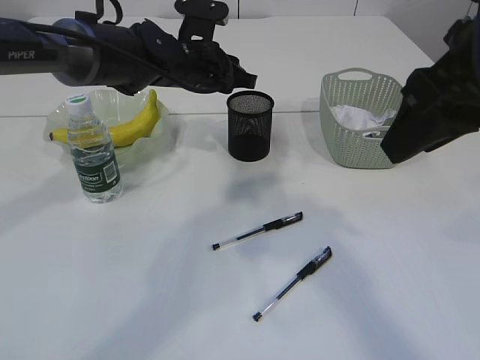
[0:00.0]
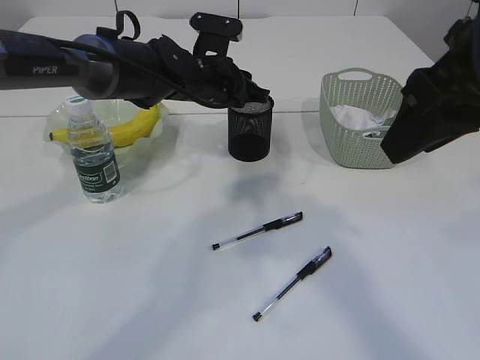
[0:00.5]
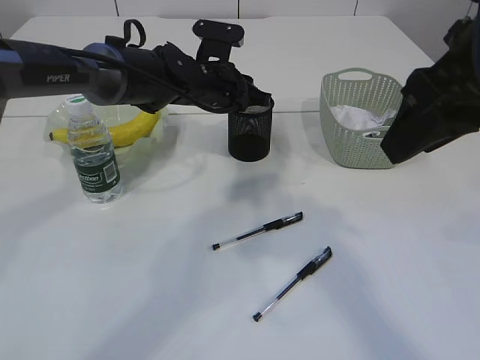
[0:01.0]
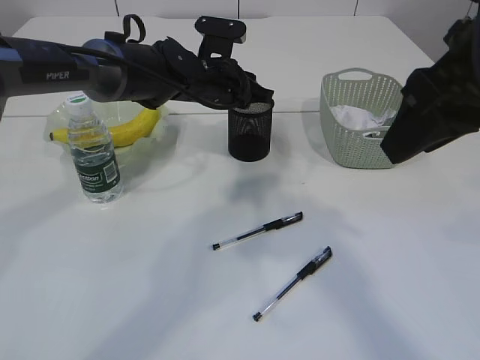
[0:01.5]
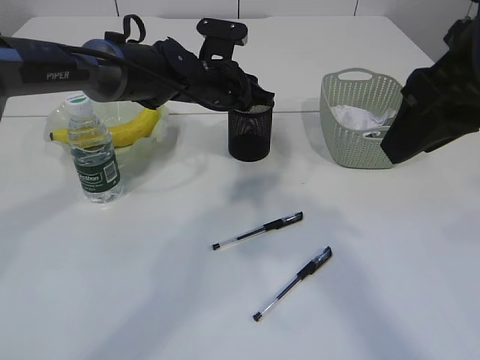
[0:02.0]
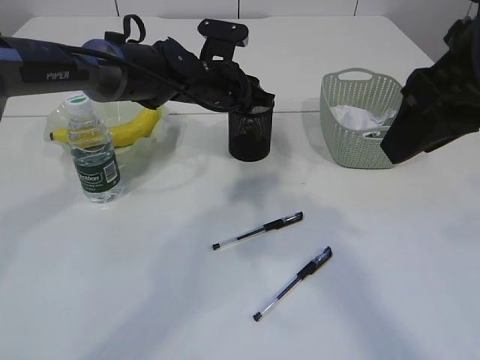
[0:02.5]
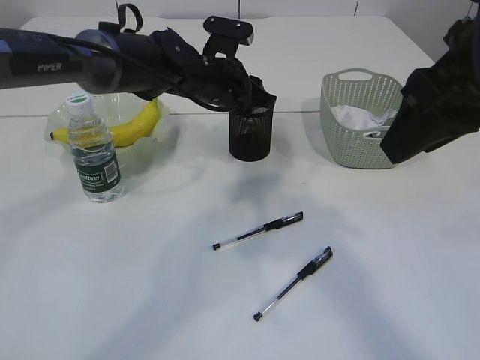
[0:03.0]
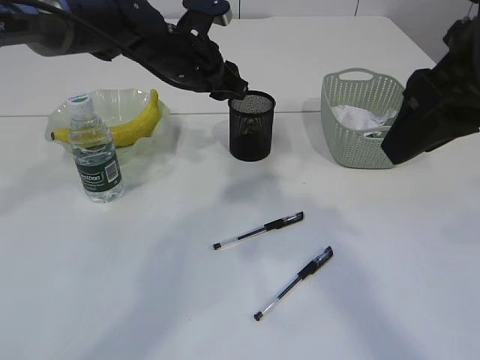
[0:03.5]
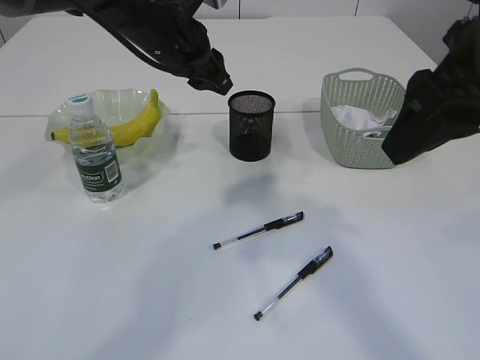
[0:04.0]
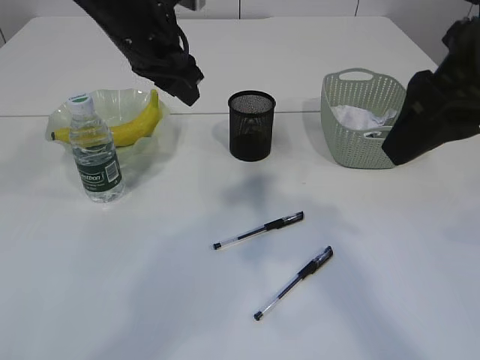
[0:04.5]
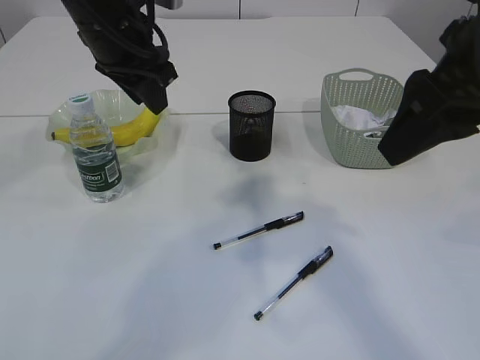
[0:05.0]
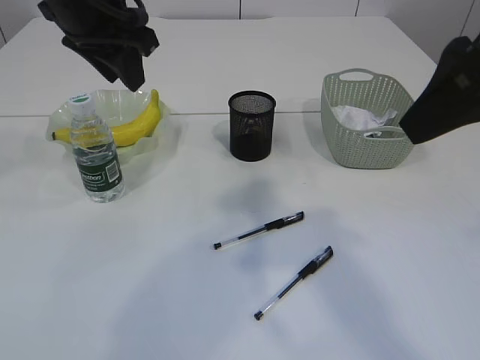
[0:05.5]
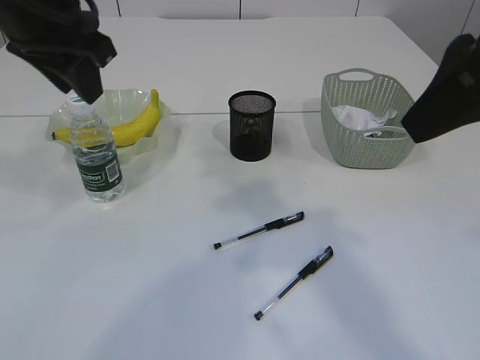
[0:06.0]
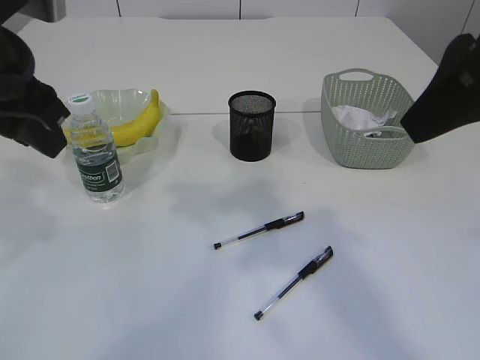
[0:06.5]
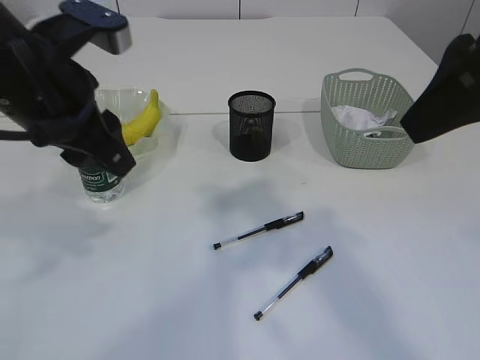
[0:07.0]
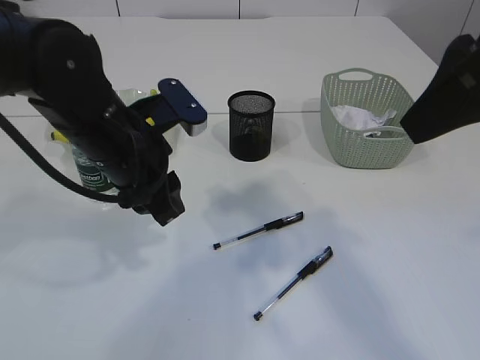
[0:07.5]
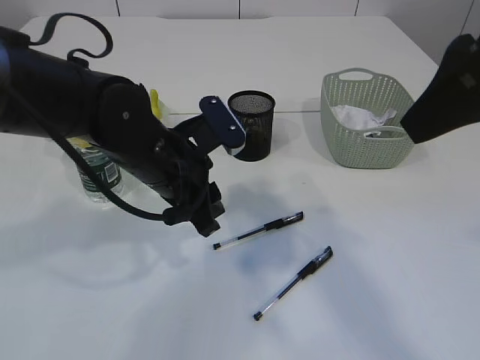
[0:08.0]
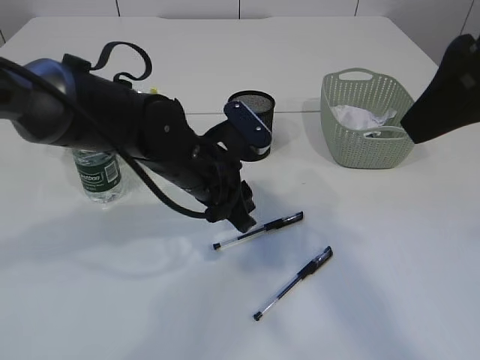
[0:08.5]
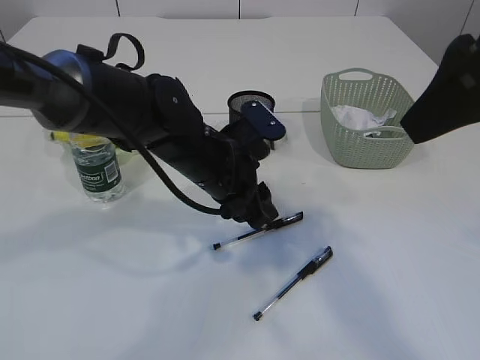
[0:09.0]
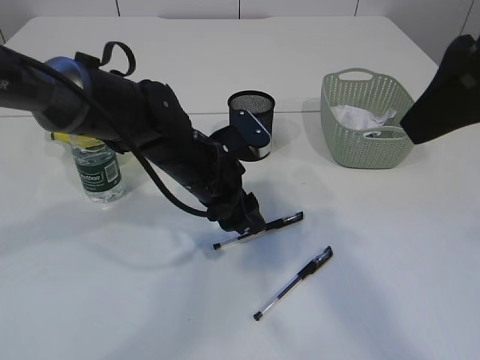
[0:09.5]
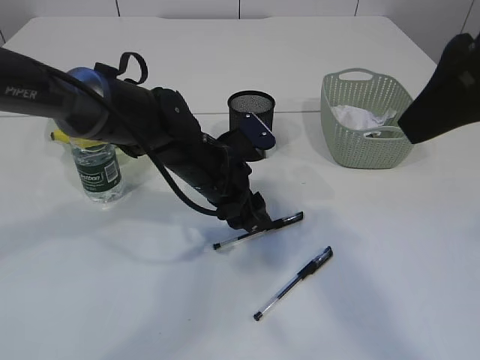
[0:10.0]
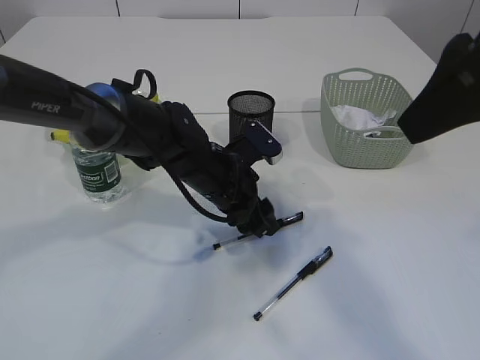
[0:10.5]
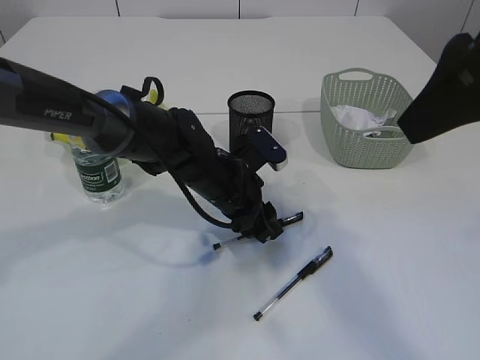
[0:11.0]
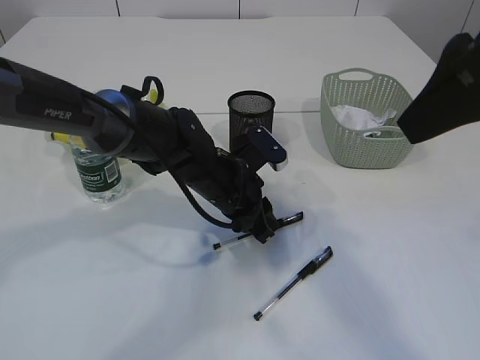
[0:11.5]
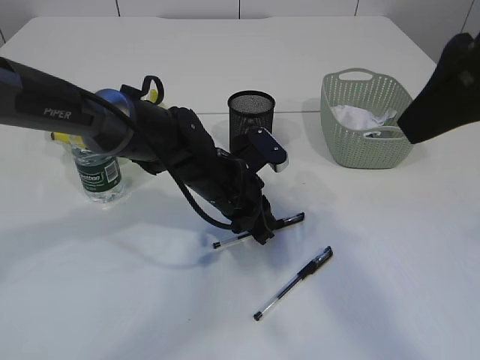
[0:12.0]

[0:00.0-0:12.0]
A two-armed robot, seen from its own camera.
Step, 0:00.0 to 0:03.5: Place the eraser into the pen holder.
0:00.0 to 0:02.0: The grippers make only small movements.
0:02.0 to 0:04.0: The left gripper travels upward by some 10 cm.
0:04.0 to 0:06.0: The left gripper travels backward, upward and to the left by some 15 cm.
0:06.0 to 0:08.0: The left gripper heads downward and to the right, covering approximately 20 cm.
0:08.0 to 0:10.0: The left gripper heads downward, covering some 5 cm.
0:10.0 to 0:12.0: The left gripper closes its fingers.

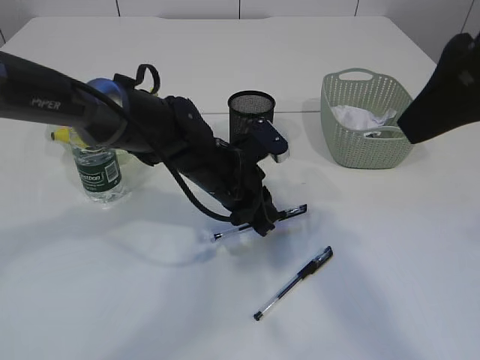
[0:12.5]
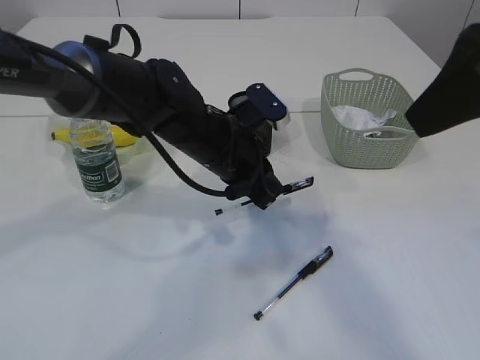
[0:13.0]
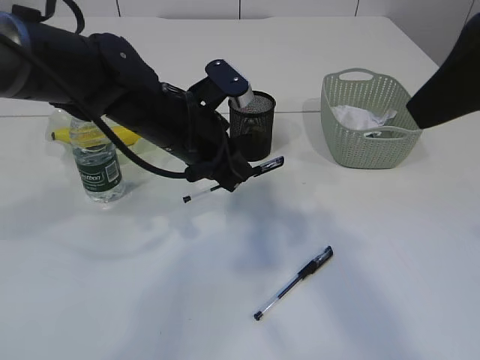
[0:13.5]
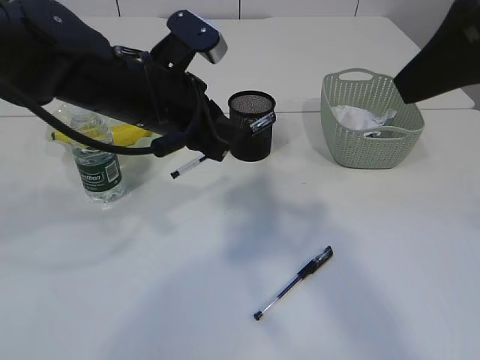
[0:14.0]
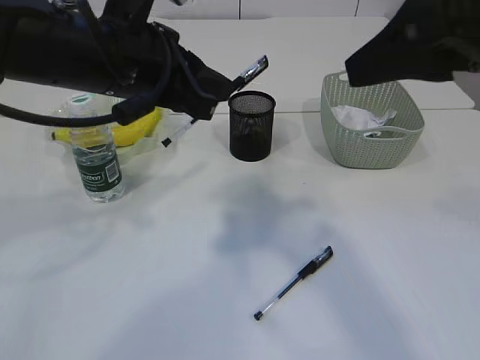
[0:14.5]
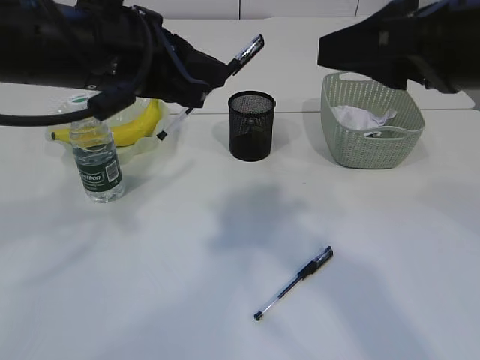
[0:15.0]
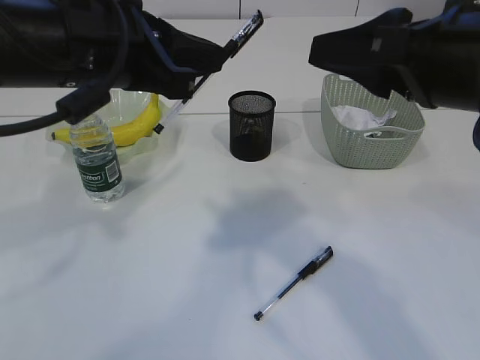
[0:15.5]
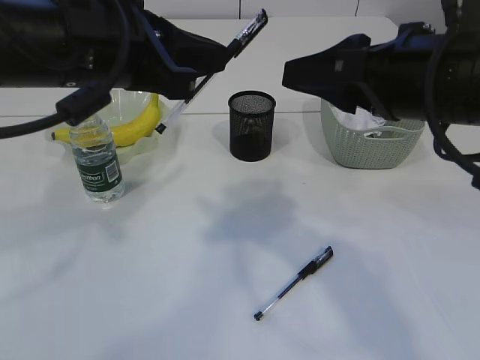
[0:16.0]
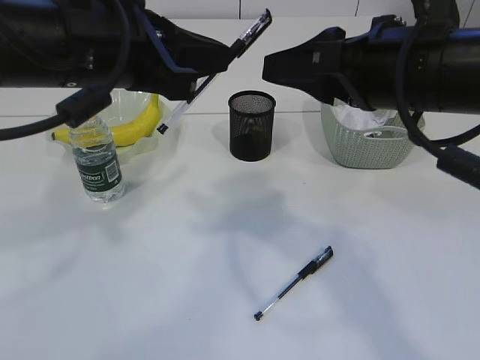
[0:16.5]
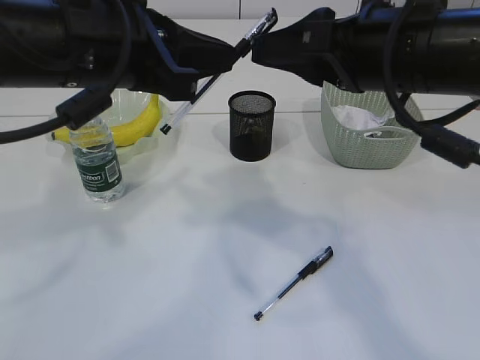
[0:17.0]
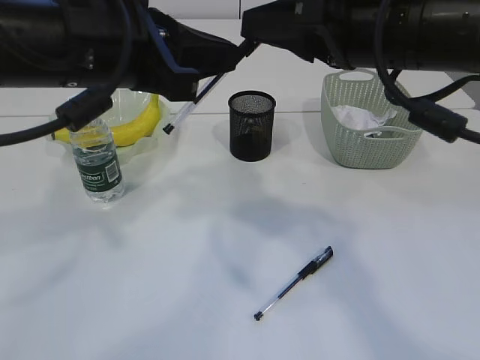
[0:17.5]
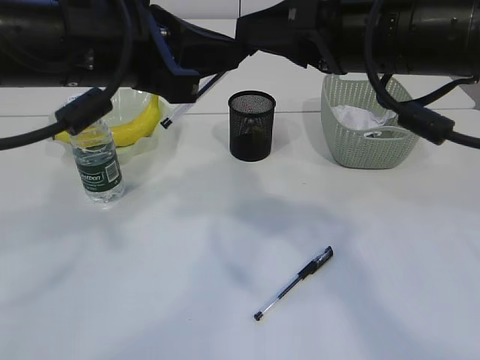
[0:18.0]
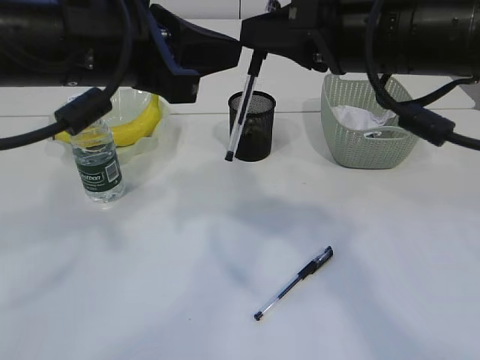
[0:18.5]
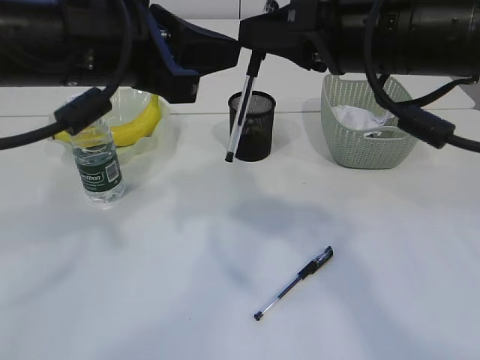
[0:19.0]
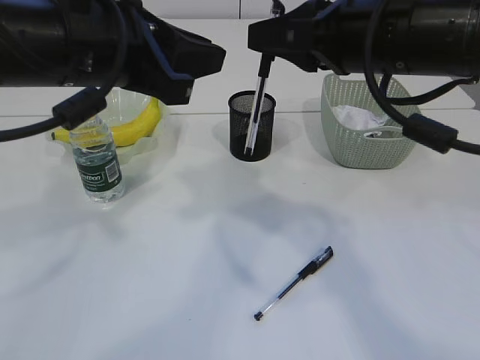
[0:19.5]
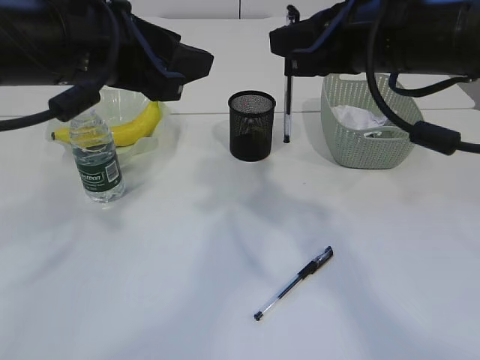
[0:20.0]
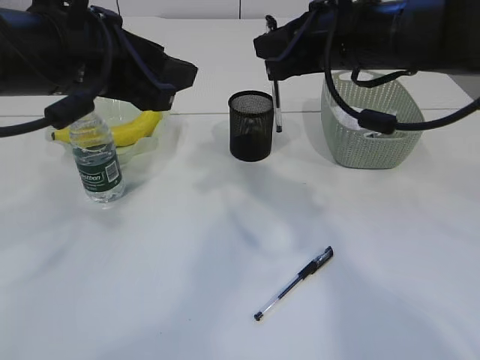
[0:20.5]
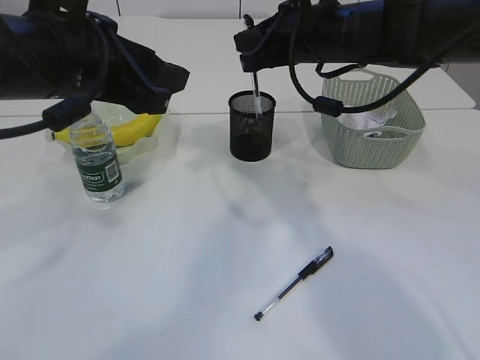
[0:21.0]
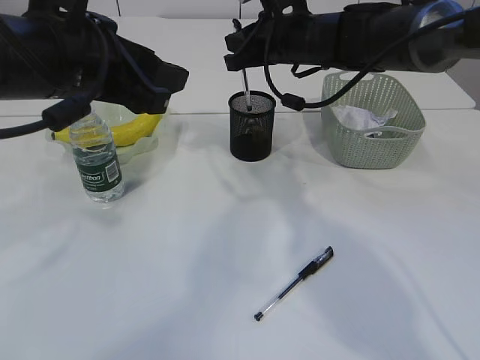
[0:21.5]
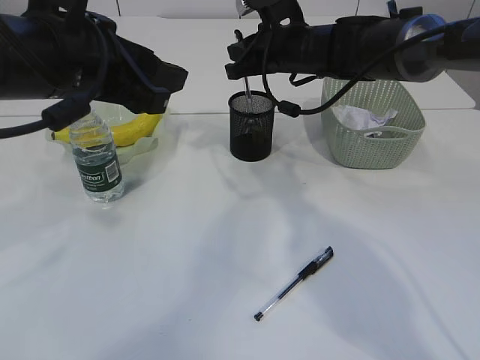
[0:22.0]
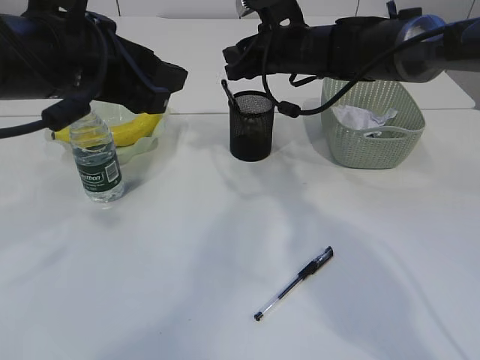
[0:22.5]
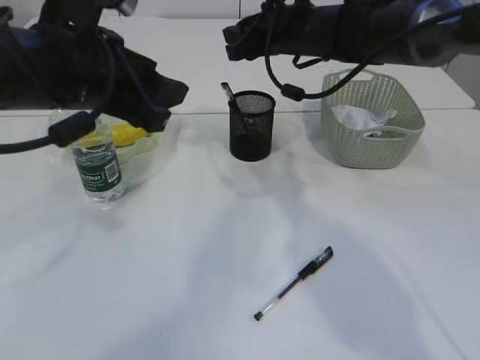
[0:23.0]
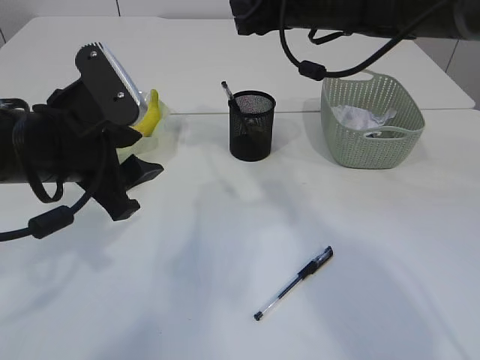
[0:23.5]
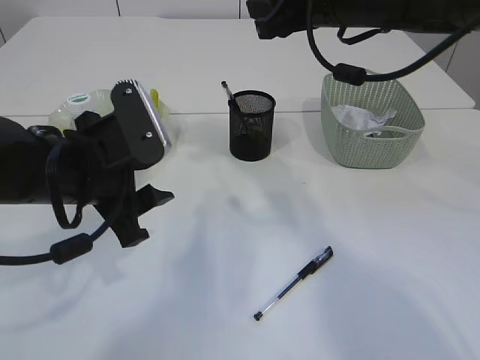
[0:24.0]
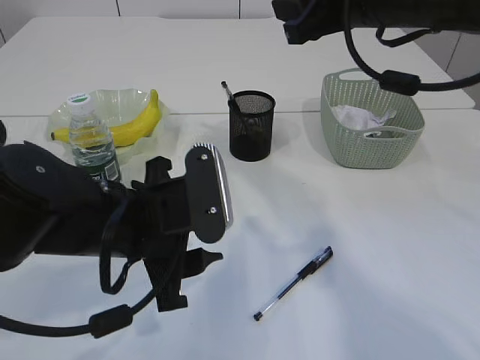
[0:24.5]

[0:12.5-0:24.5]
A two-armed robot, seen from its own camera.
Step, 0:13.5 to 0:19.5: transfer the pen to the right arm.
Step, 0:20.0 to 0:23.0: Place the pen into the pen holder.
0:12.5 to 0:14.5: The left gripper goes about 20 cm upward and to the left.
0:14.5 to 0:16.5: The right gripper goes about 10 cm downward.
0:16.5 to 0:18.5: The right gripper closes.
0:18.5 to 0:20.5: The left gripper opens up. The right gripper goes some 5 cm forward.
0:20.5 to 0:22.5: The right gripper is displaced forward and downward by approximately 15 cm, and opens its fingers.
0:22.5 to 0:24.5: The left gripper travels downward by roughly 10 cm, while the right gripper is displaced backward and upward by about 15 cm.

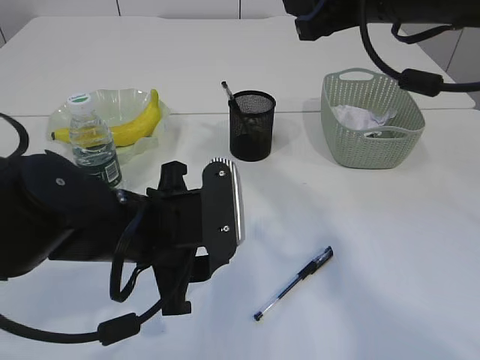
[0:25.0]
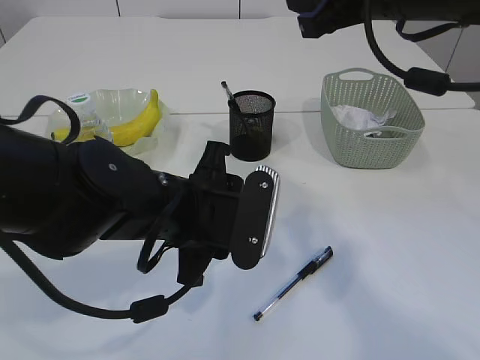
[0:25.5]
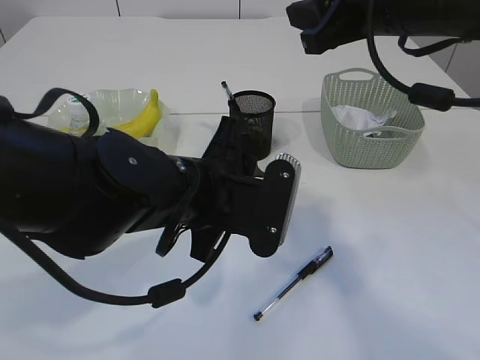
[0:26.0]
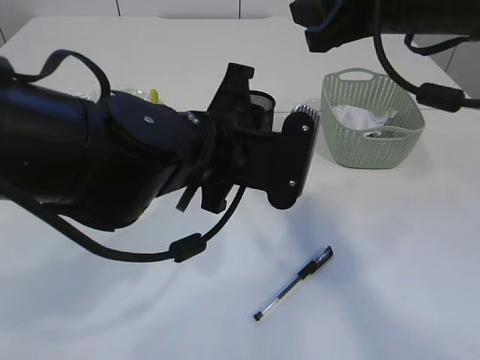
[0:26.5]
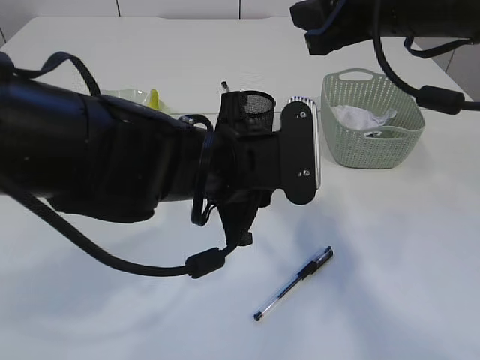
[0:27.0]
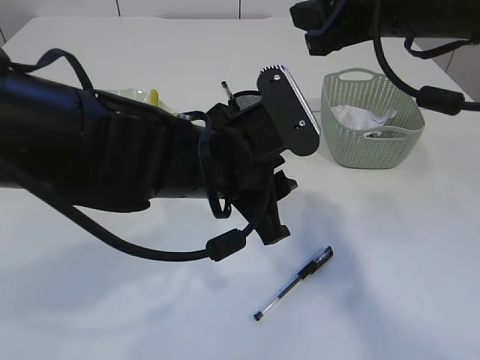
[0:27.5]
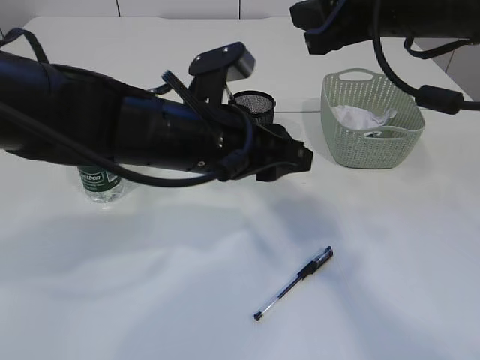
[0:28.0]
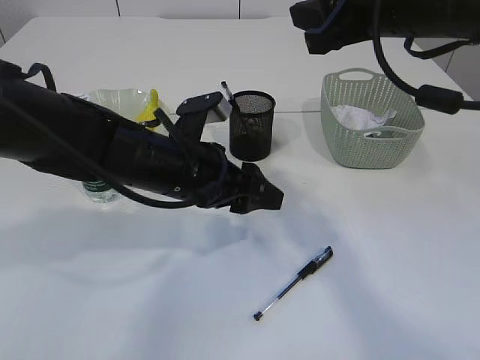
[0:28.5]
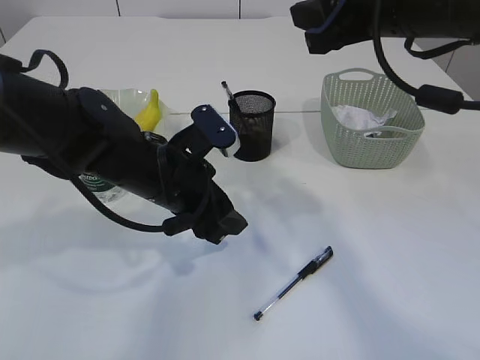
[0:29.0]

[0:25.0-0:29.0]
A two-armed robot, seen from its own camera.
0:25.0 to 0:27.0: The left gripper heads to the right, covering roughly 5 cm.
0:27.0 to 0:29.0: The left gripper goes roughly 10 cm to the left, downward and forward.
